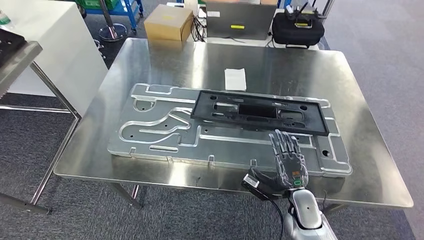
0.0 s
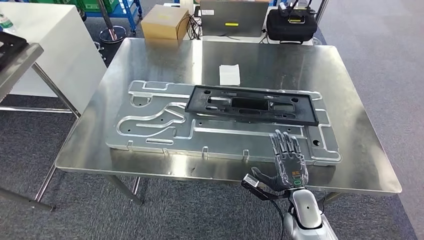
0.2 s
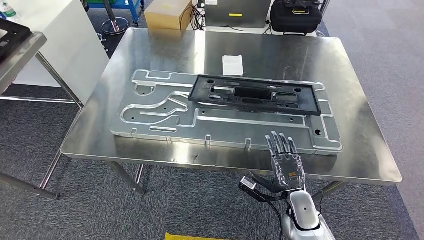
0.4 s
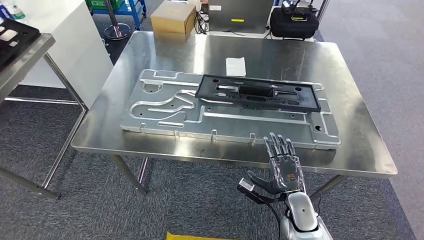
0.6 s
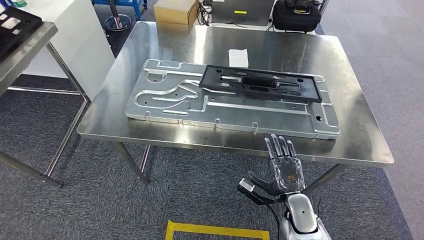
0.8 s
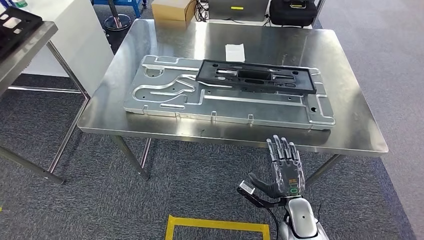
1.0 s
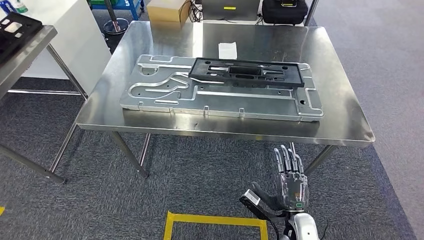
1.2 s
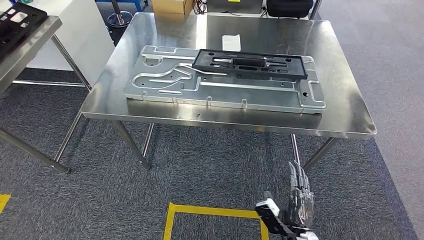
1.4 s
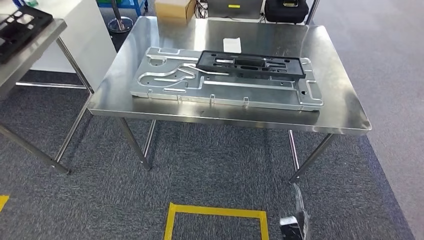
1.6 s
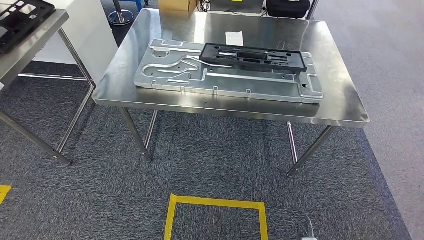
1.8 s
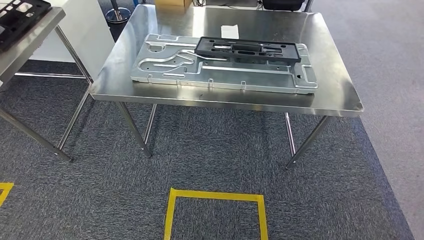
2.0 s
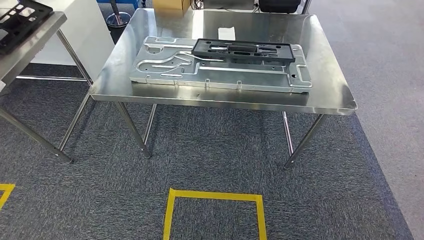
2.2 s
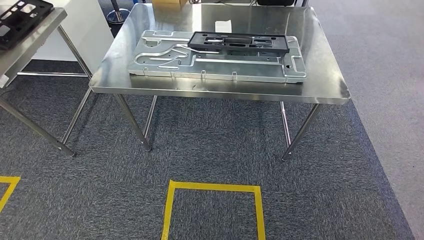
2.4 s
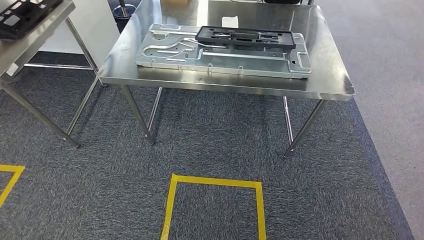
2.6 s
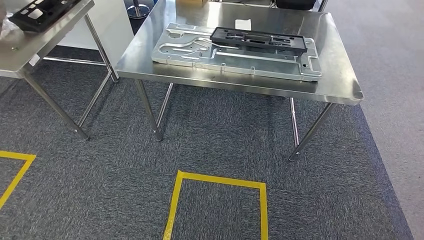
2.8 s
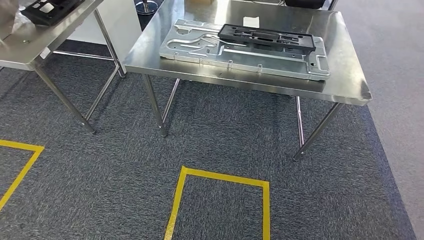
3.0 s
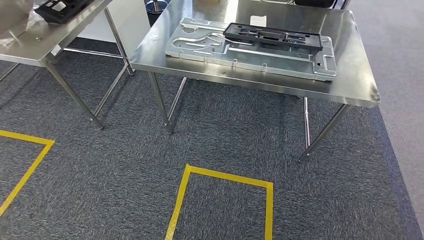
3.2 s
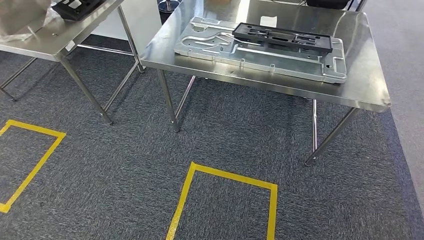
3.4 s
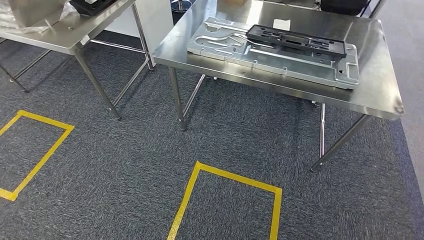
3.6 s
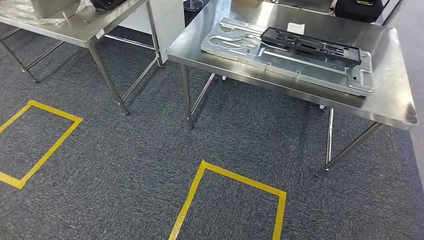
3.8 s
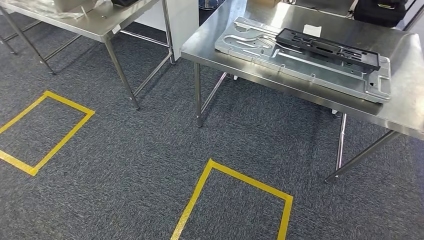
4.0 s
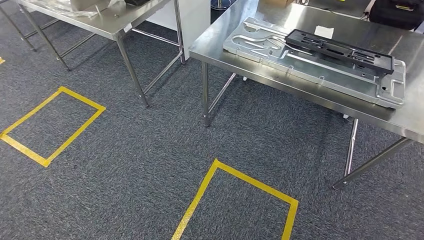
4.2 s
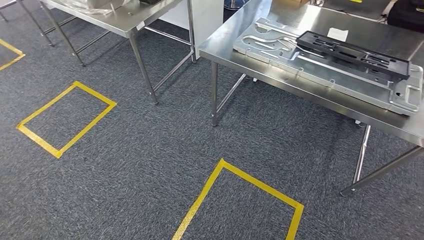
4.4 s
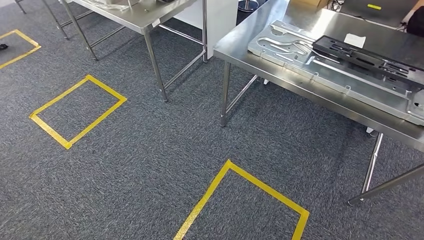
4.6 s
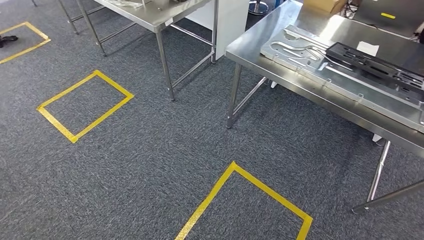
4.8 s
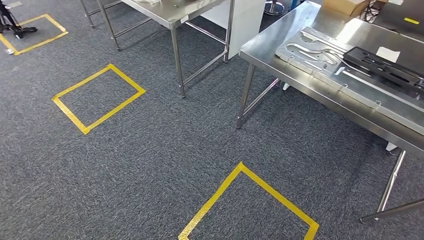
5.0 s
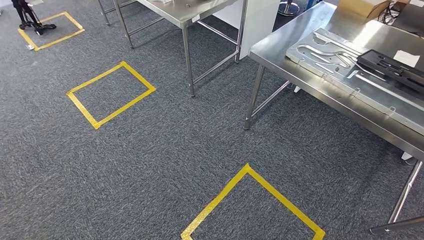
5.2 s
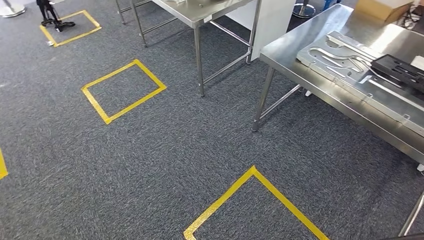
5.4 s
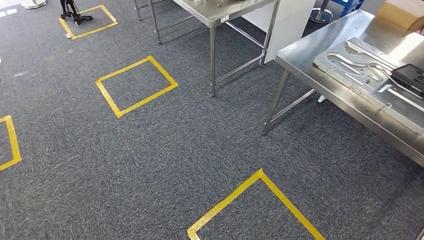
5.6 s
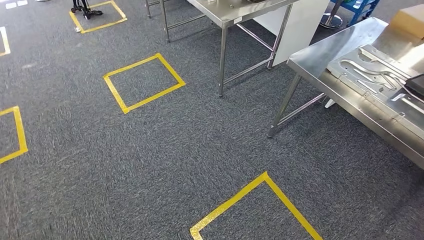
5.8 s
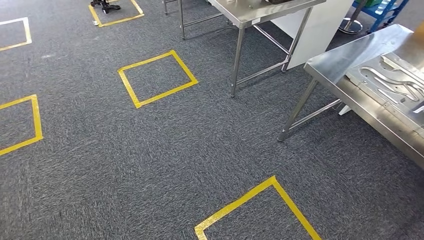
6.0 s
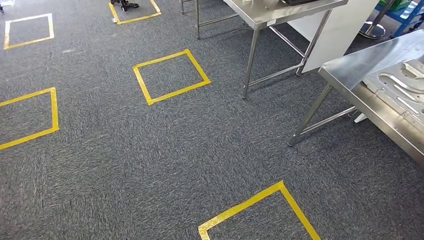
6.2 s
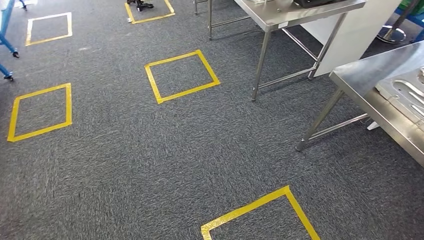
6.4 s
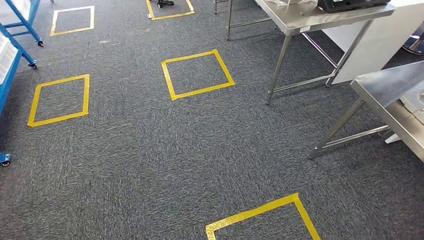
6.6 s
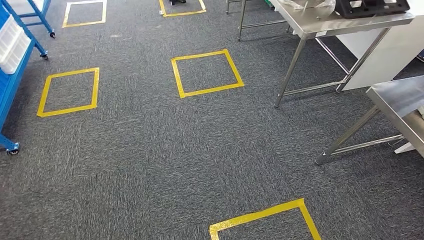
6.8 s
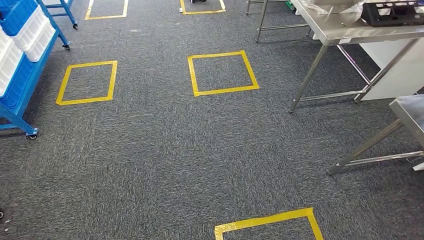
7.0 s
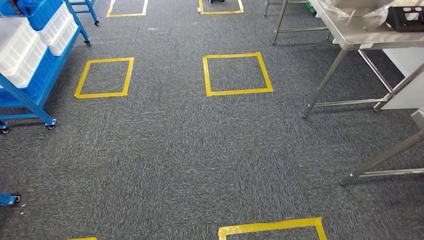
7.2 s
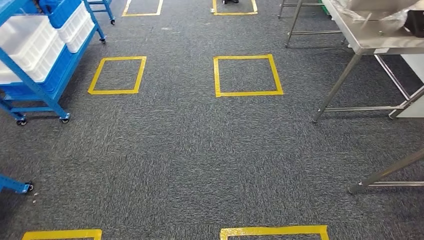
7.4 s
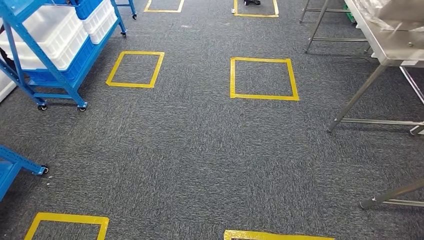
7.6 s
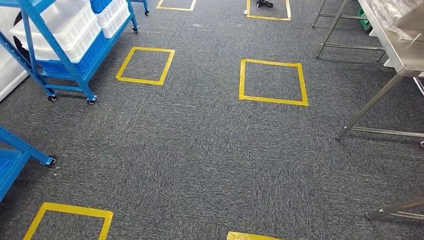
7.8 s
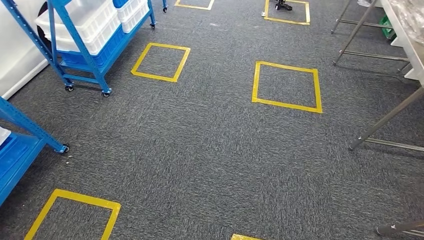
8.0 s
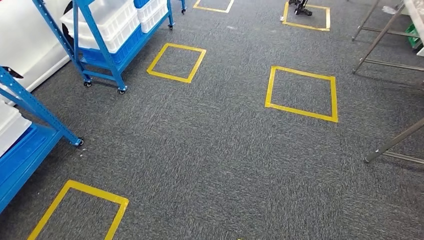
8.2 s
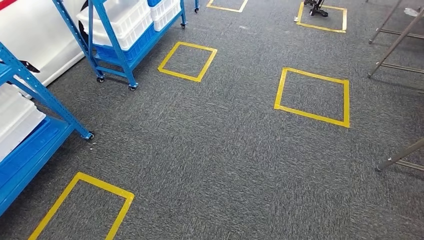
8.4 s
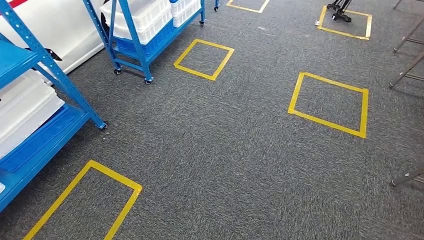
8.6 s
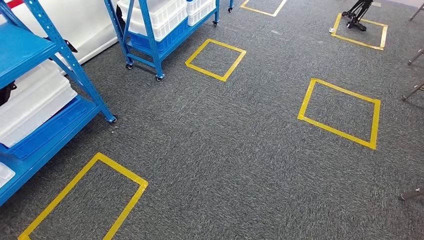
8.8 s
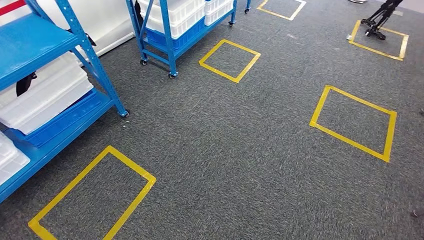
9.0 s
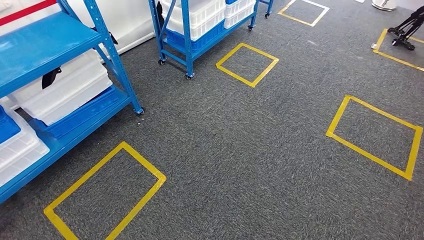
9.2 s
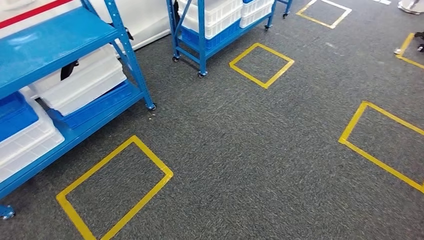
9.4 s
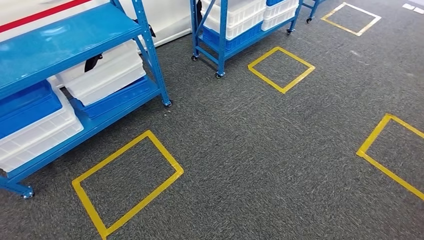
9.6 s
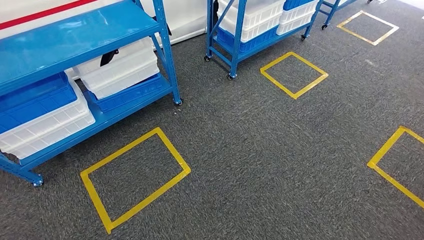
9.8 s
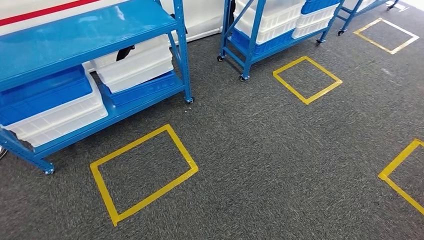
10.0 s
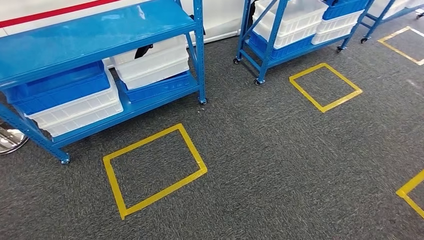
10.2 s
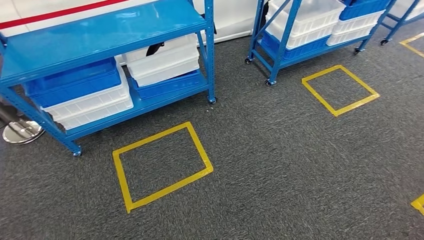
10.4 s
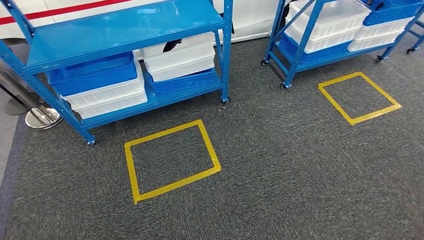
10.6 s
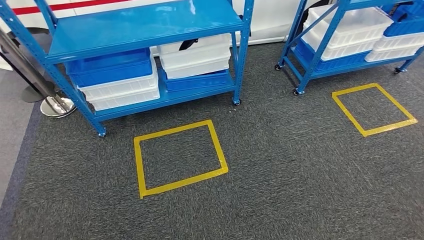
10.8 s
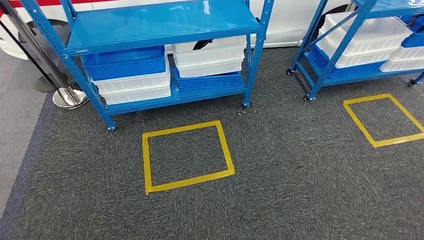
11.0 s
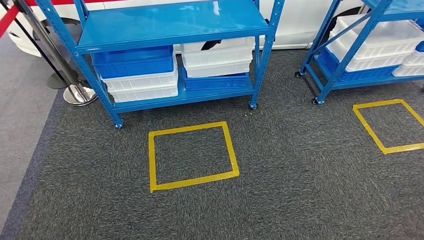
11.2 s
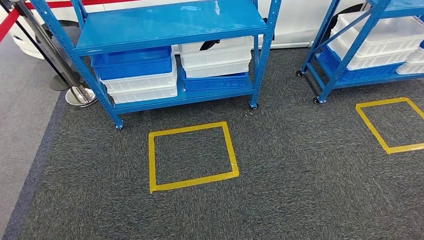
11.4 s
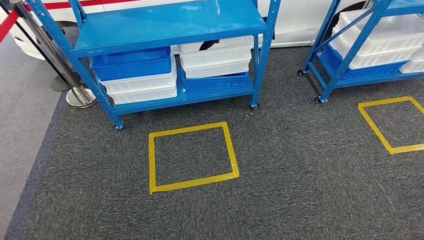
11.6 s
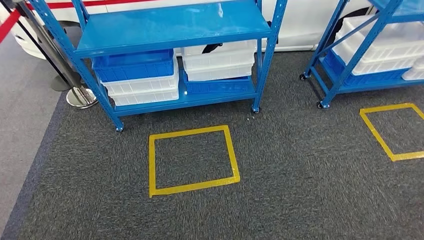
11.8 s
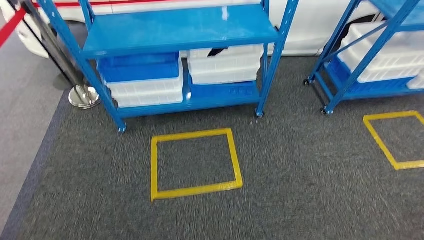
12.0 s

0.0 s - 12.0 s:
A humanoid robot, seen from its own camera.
Step, 0.0 s - 3.0 s: Insert the large material into the corresponding slot on the workbench.

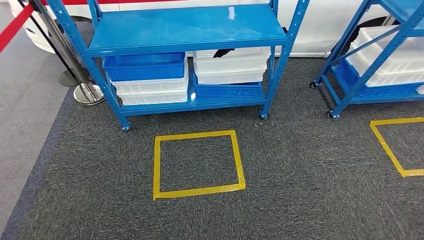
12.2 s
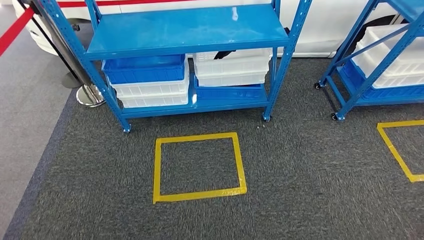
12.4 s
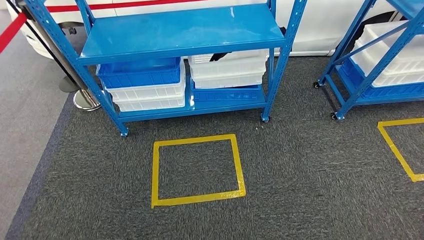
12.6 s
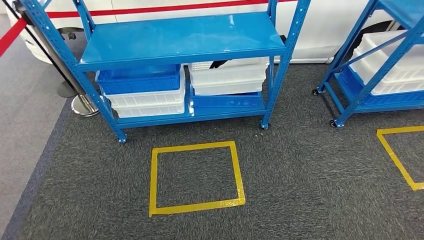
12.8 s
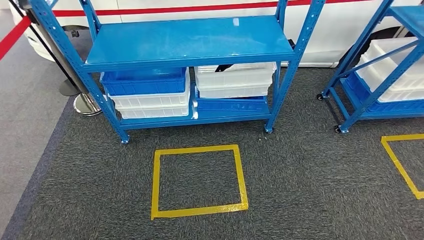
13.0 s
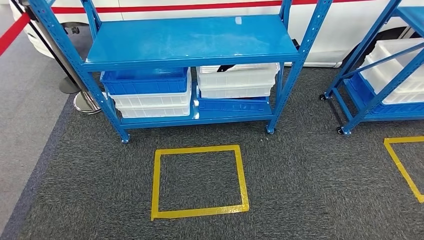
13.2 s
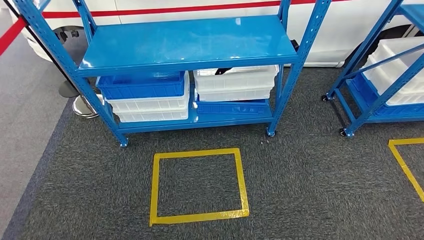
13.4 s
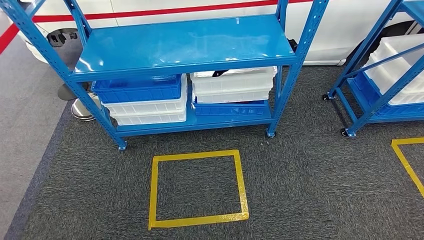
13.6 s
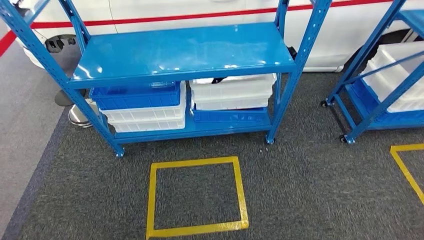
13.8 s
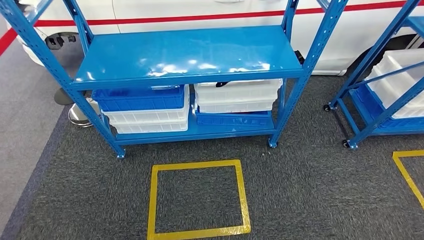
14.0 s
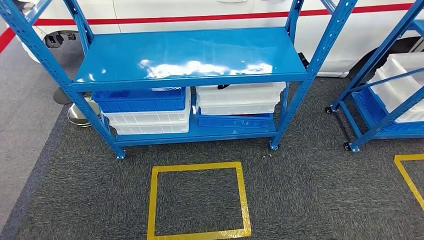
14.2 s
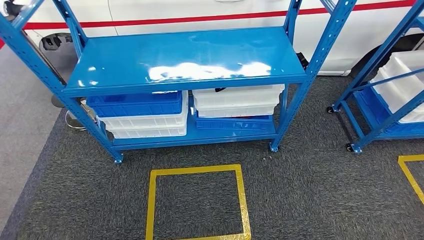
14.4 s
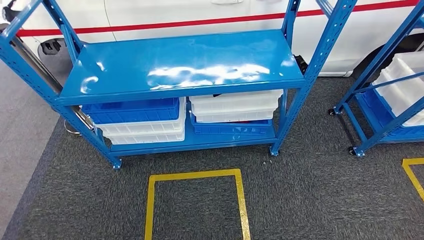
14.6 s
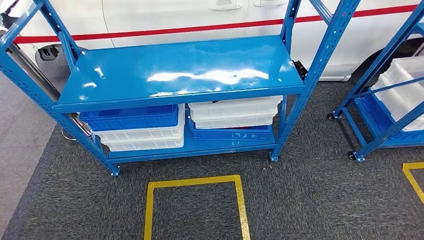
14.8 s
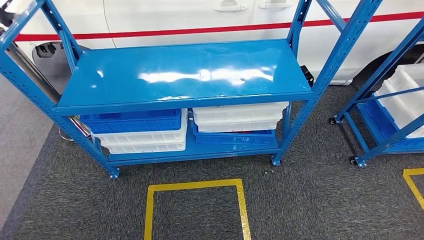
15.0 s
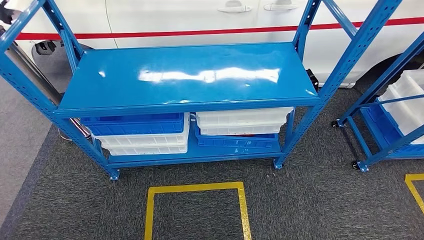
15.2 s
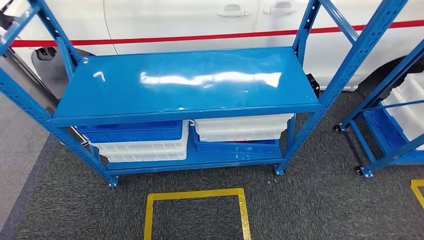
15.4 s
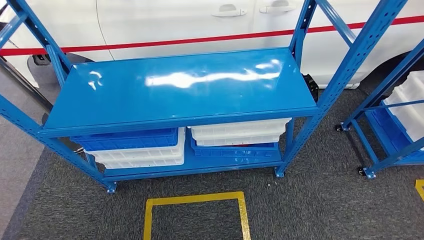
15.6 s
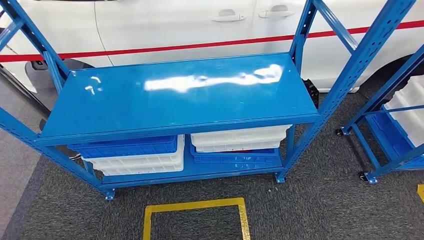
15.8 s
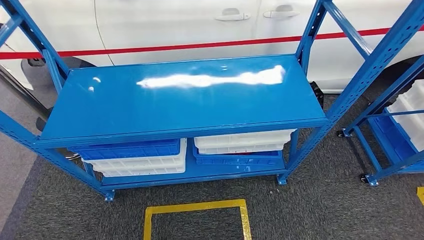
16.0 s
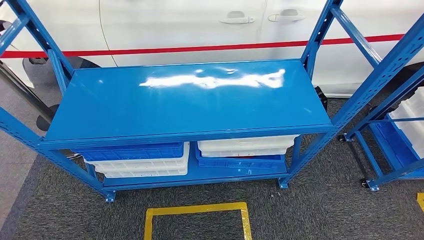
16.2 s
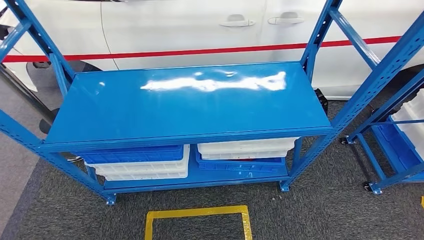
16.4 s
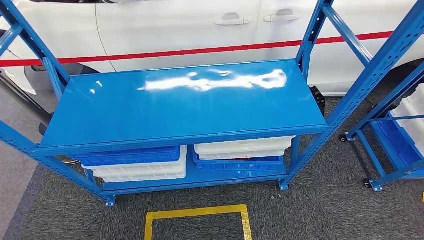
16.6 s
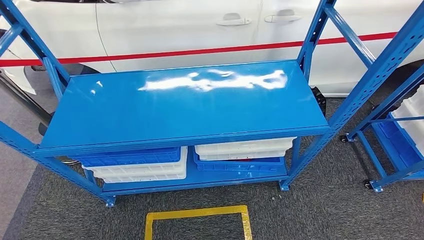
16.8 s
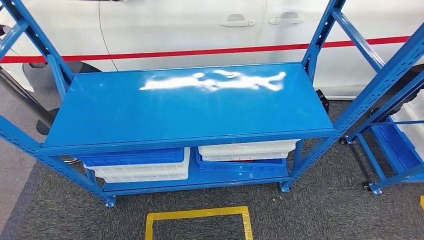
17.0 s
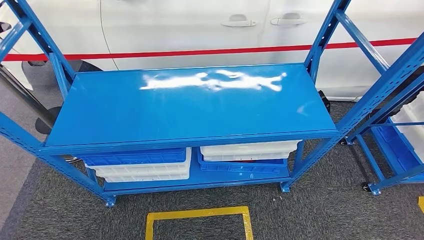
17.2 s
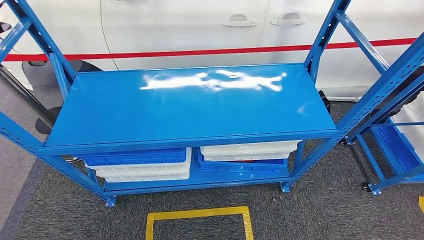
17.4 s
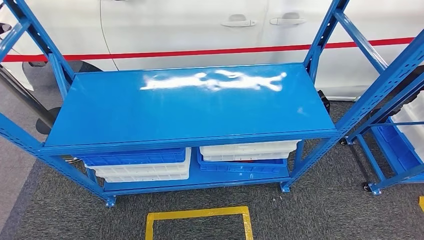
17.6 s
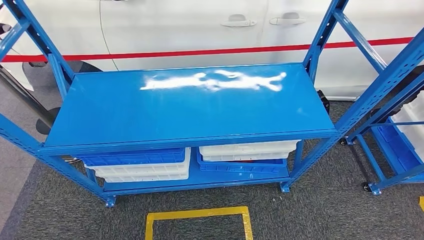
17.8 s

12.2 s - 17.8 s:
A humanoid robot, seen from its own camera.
Step, 12.2 s - 17.8 s: Move to the initial position of the shelf.
16.4 s - 17.8 s: The hands make only small movements.
